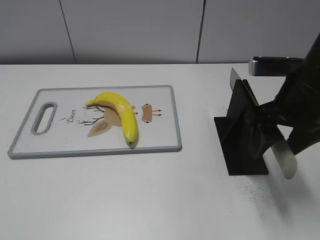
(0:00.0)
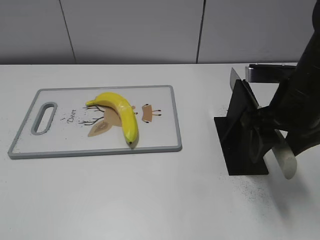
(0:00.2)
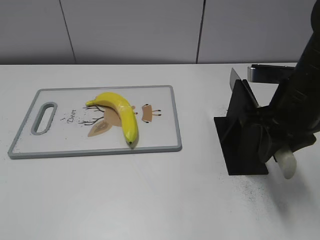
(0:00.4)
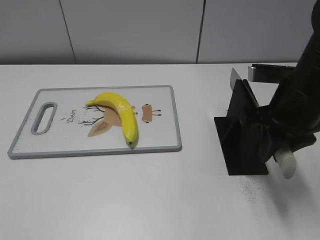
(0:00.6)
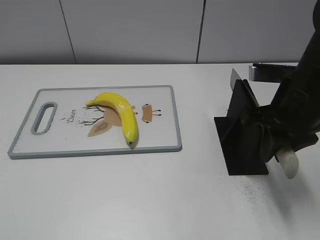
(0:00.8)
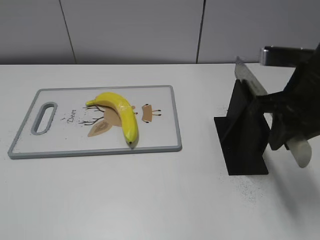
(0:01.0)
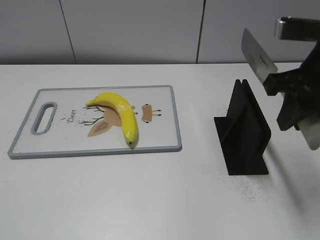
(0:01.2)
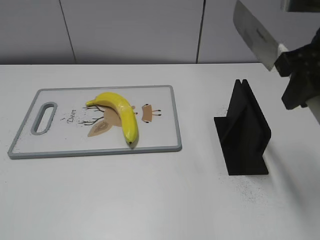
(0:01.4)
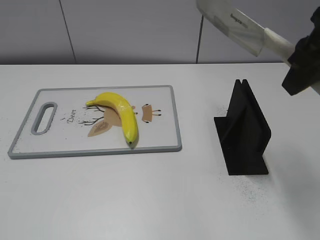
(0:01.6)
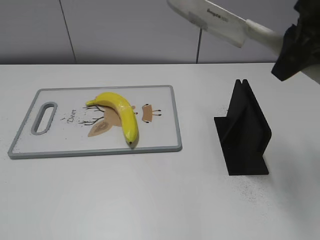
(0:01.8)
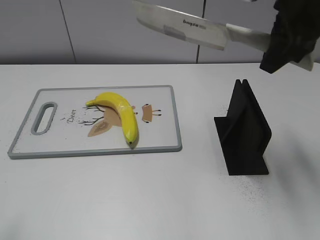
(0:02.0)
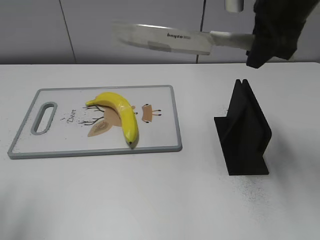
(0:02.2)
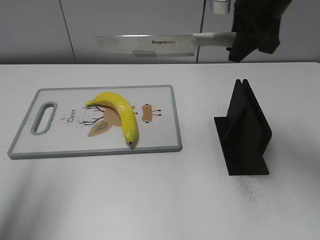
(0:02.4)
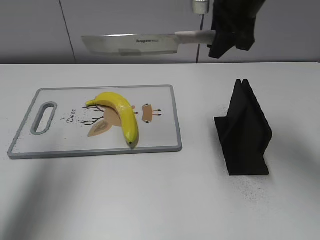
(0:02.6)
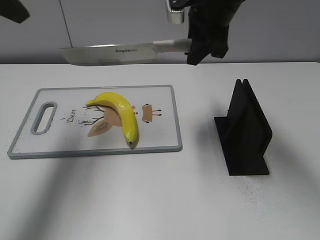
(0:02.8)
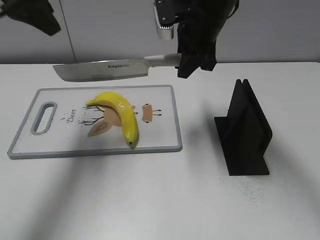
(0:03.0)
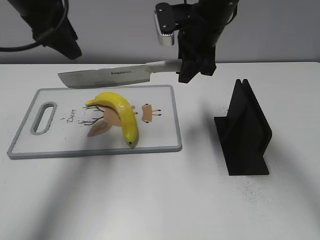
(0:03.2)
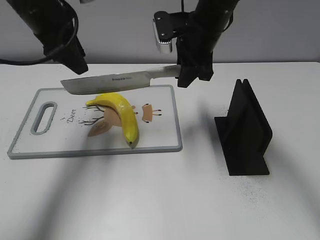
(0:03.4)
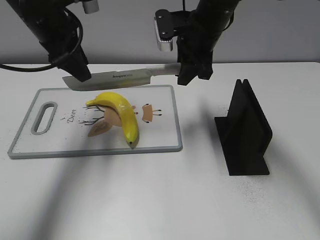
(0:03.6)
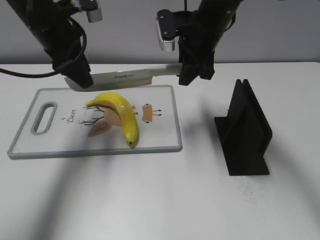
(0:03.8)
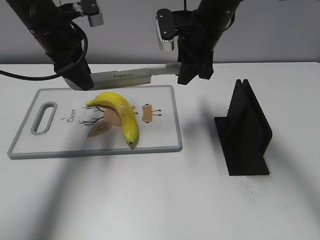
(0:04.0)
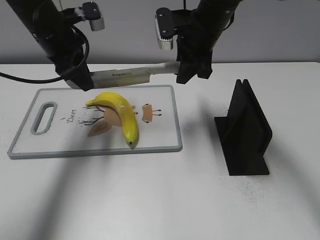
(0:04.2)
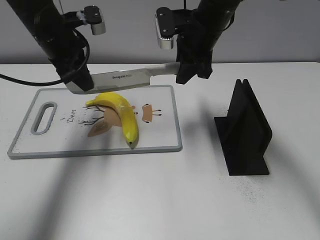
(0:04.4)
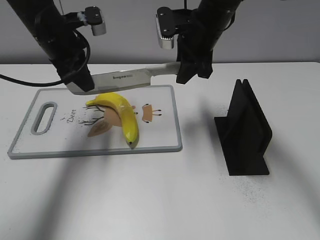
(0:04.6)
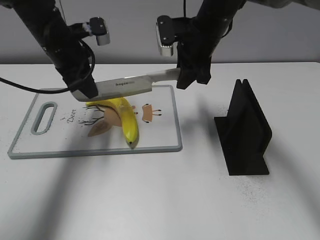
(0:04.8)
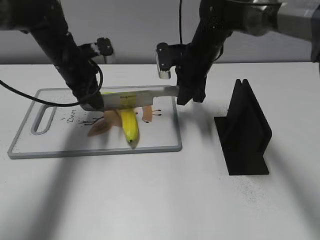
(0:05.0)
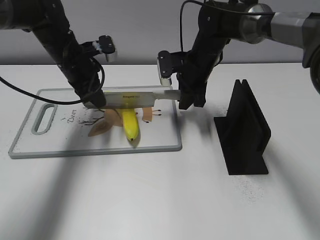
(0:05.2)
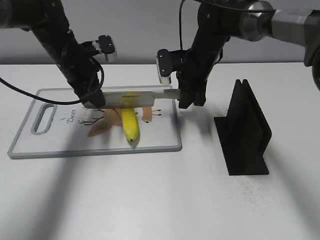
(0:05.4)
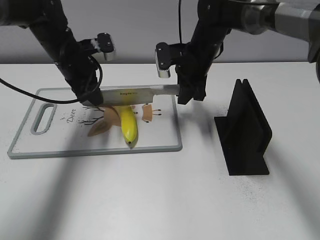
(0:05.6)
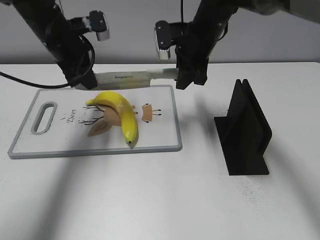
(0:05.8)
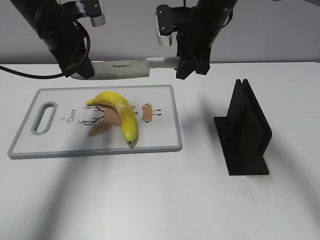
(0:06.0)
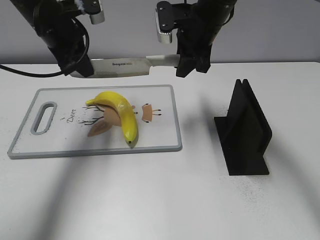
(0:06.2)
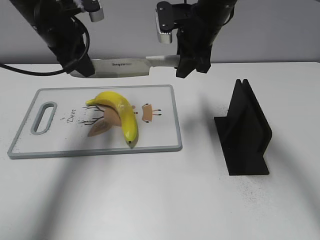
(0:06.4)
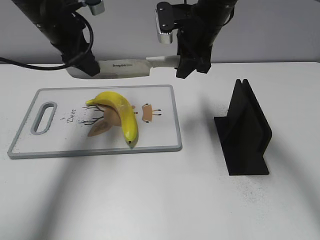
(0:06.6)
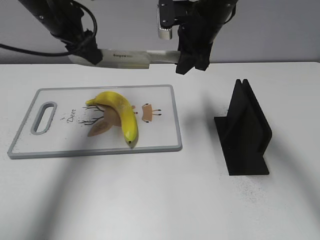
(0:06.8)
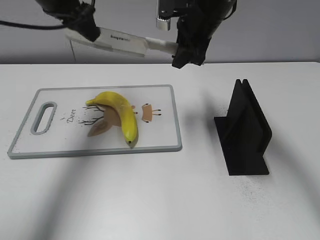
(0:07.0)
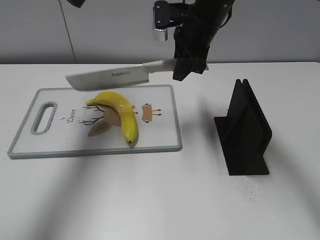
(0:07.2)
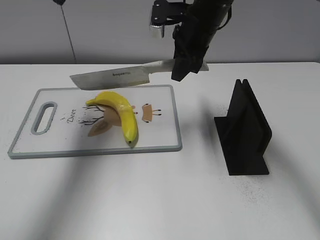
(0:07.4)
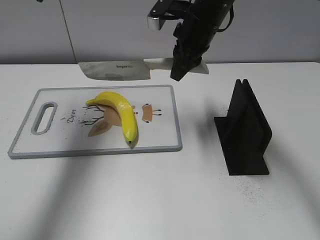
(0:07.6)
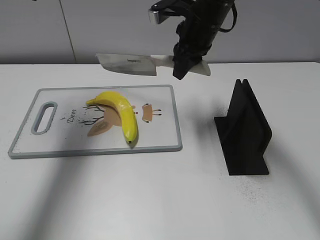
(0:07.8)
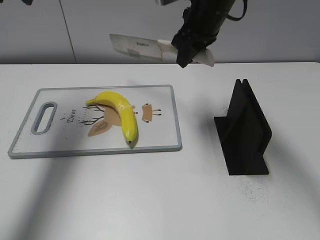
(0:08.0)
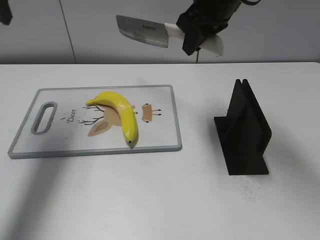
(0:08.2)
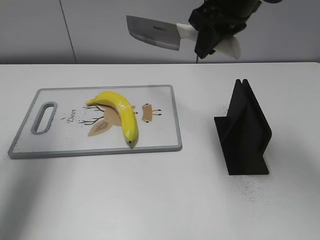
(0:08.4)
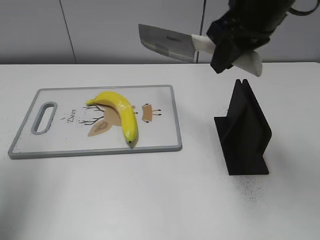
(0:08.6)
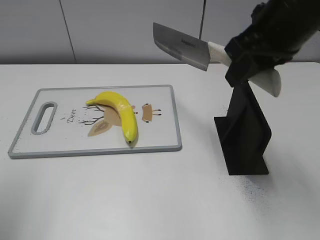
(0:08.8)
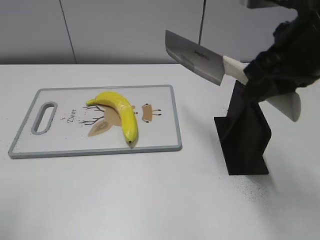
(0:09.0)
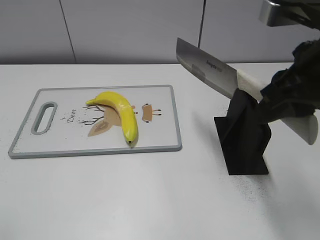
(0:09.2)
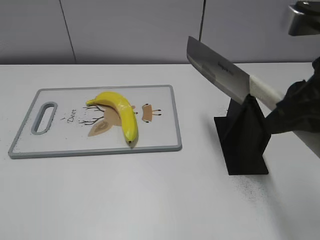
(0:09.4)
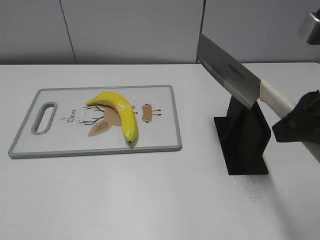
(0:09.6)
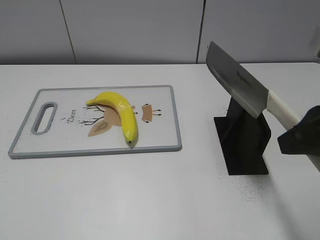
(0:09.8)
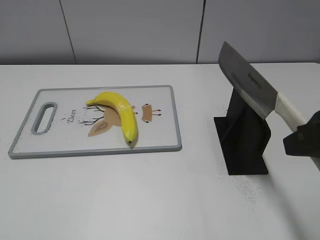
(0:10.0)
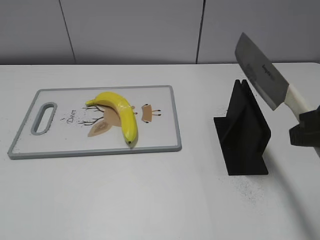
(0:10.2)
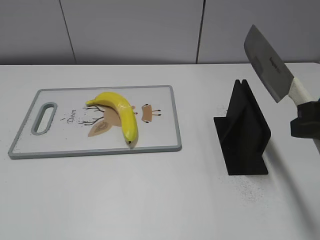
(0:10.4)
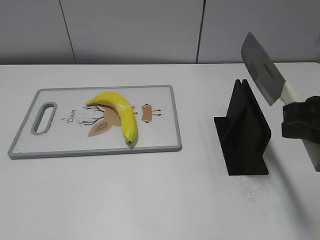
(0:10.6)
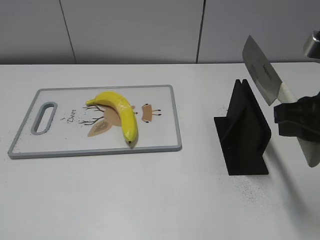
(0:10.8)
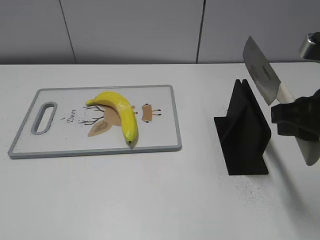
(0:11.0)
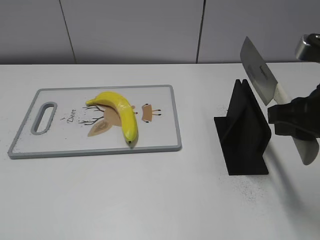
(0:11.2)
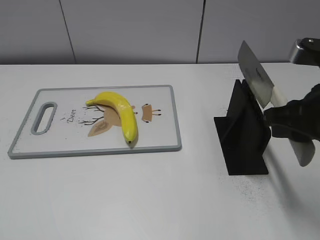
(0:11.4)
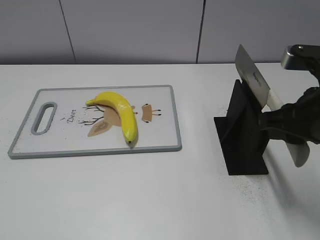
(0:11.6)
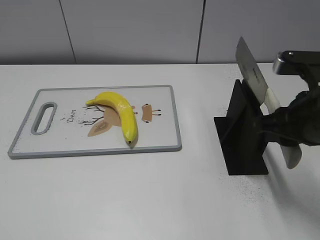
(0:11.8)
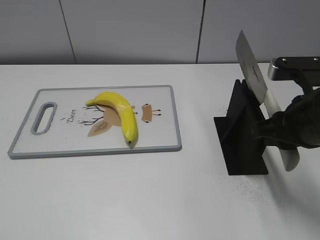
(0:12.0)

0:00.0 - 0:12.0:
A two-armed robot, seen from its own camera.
Task of the whole recording: cut plastic banana.
Step, 0:01.8 - 0:06.2: Hold the blade with your left hand.
Step, 0:06.6 - 0:07.8: Cut the banana with your right hand.
Step, 0:08.0 - 0:09.2: Lift the knife with your right hand.
0:00.0 - 0:01.6: The right gripper goes approximately 10 cm upward, and closes its fingers.
0:01.6 - 0:03.0: The left gripper shifts roughly 35 cm forward. Meanwhile the right gripper moves forward, to the left and downward, some 20 cm.
0:03.0 - 0:04.4: The left gripper goes some 15 cm downward, and closes its fingers.
0:04.4 - 0:06.0: The right gripper travels downward and back again, approximately 10 cm each way. Meanwhile the left gripper goes downward and returns, about 10 cm each way.
0:06.0 - 0:07.6: The left gripper is displaced upward by approximately 15 cm, and opens up.
0:07.6 - 0:09.0: The left gripper goes approximately 25 cm backward; the right gripper shifts roughly 20 cm backward and to the right.
0:09.0 - 0:10.4: The right gripper shifts approximately 10 cm backward and to the right; the left gripper heads backward and downward, covering approximately 15 cm.
0:10.4 - 0:12.0: The right gripper moves downward and forward, some 10 cm.

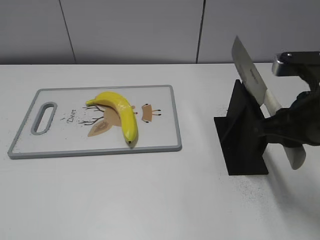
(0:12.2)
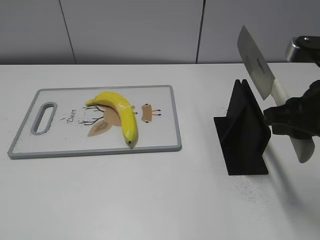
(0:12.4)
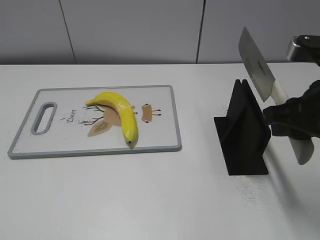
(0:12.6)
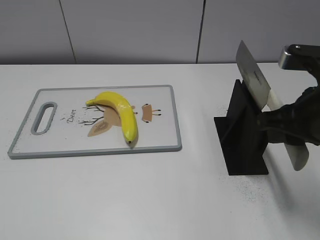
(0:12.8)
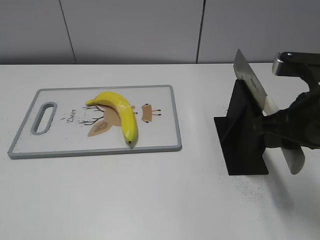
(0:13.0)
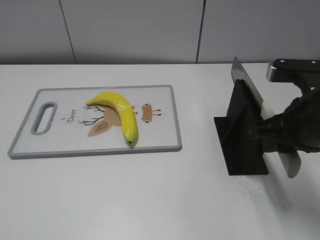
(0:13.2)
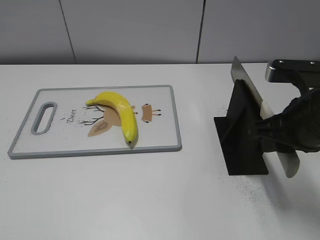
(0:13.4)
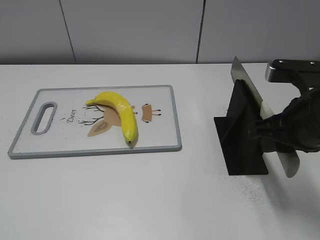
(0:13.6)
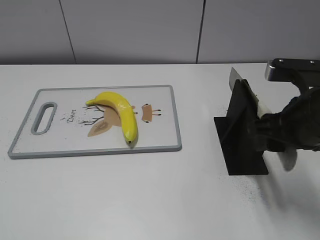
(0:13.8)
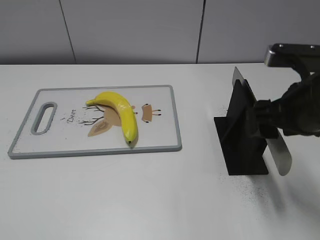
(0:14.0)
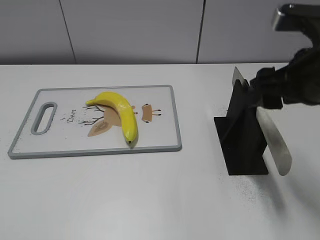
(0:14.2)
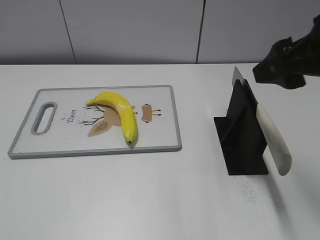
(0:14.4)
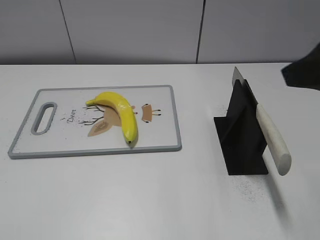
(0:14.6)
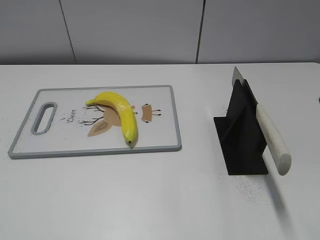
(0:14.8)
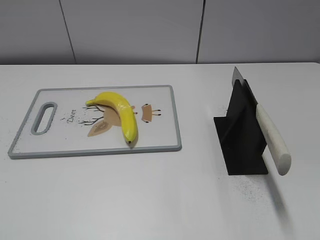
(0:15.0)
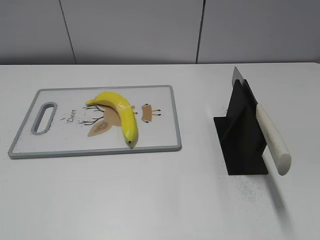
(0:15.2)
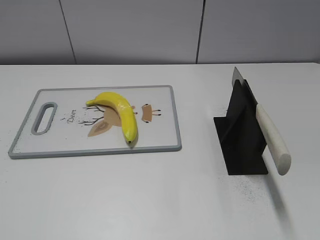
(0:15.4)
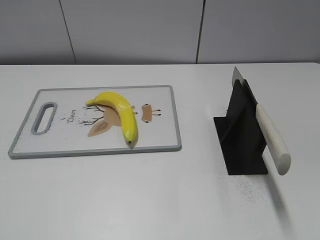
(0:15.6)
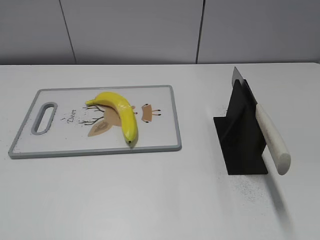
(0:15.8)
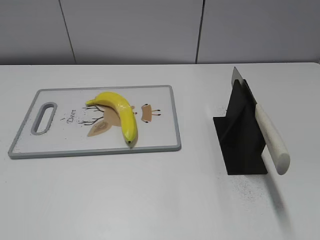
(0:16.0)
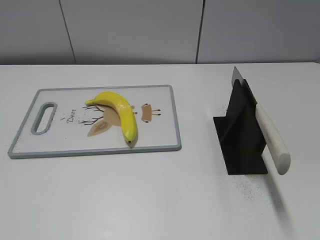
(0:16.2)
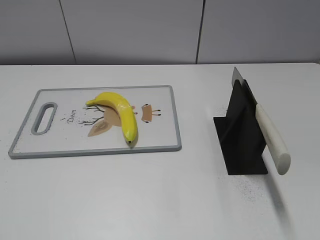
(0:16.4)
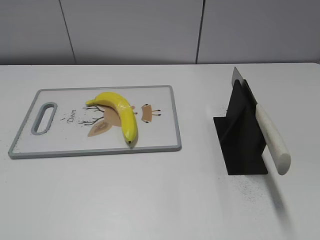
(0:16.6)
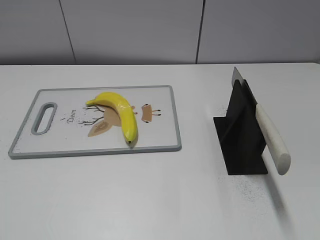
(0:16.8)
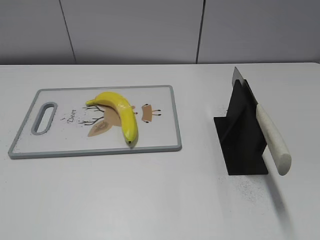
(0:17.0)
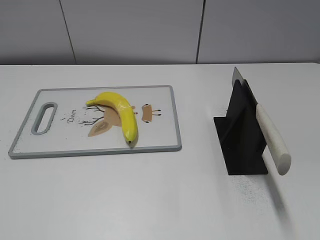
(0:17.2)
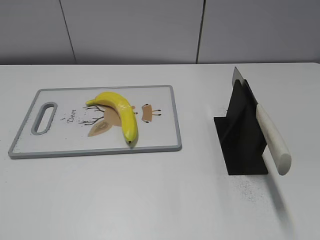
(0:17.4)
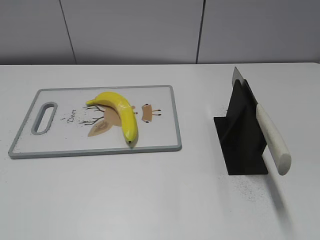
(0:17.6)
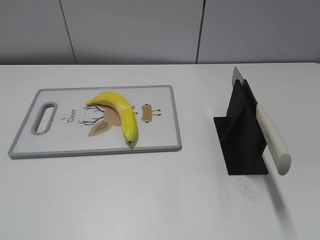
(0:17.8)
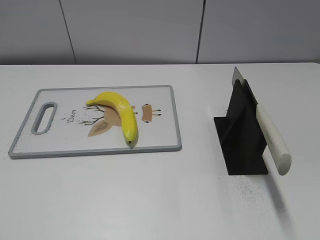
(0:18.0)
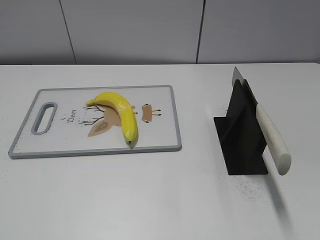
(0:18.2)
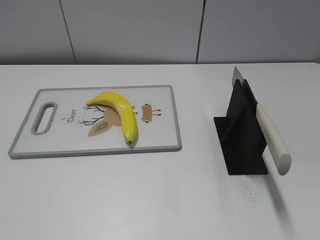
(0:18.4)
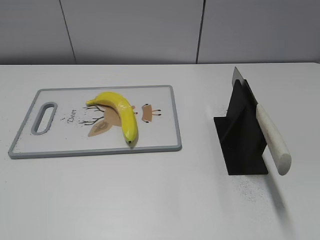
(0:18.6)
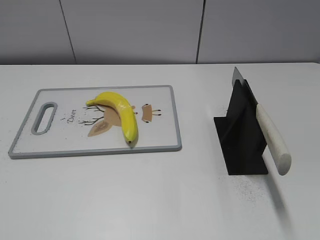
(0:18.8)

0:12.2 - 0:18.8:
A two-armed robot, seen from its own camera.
Task of the whole recording: cut plastic banana.
Step, 0:12.2 - 0:18.2: Place the knife on the storage rack with your right hand.
0:12.2 - 0:13.8: The right gripper opens.
0:13.8 - 0:15.4: The right gripper heads backward, upward and to the right, covering approximately 20 cm, and opens up.
